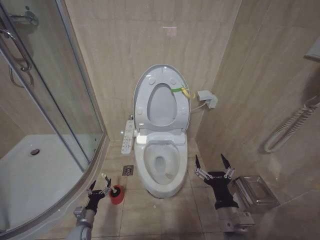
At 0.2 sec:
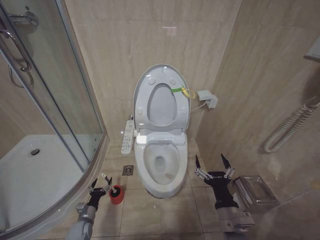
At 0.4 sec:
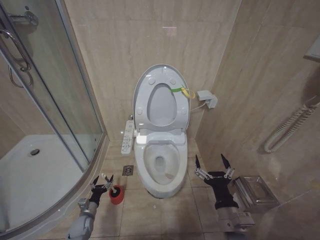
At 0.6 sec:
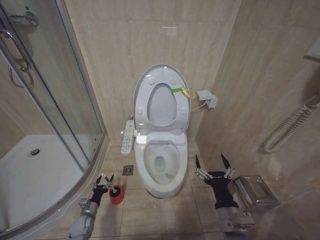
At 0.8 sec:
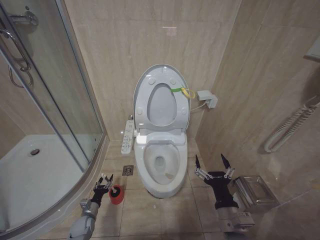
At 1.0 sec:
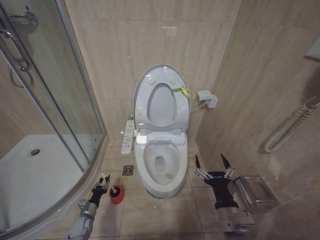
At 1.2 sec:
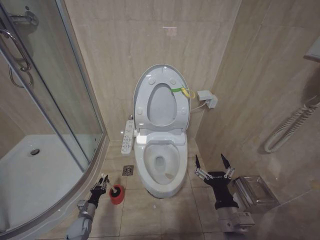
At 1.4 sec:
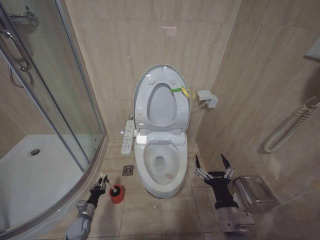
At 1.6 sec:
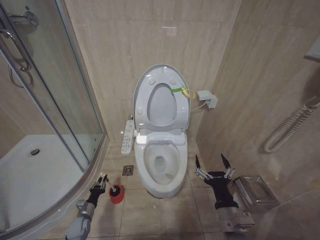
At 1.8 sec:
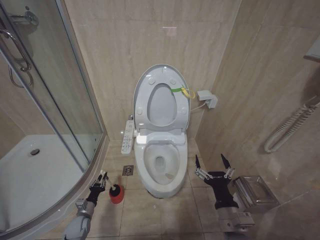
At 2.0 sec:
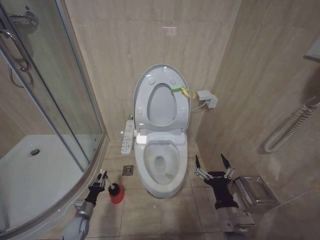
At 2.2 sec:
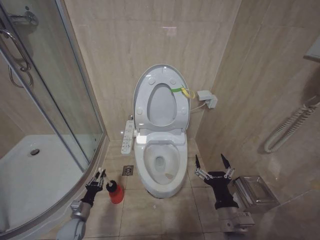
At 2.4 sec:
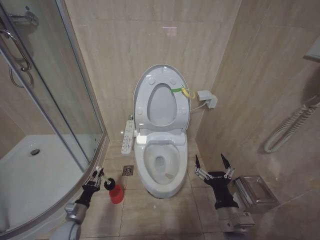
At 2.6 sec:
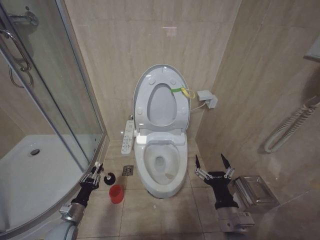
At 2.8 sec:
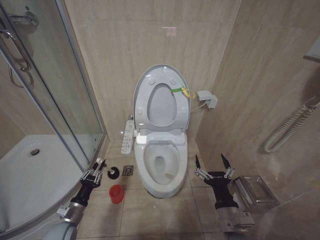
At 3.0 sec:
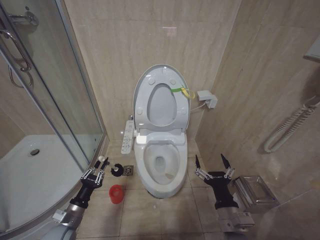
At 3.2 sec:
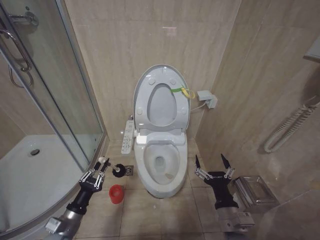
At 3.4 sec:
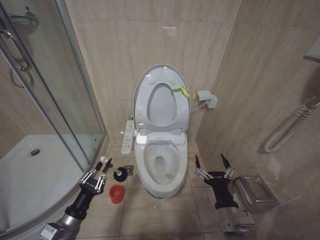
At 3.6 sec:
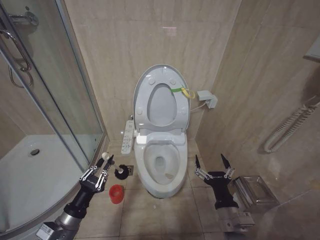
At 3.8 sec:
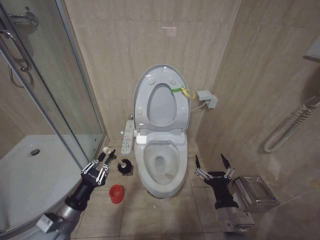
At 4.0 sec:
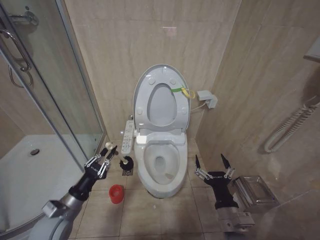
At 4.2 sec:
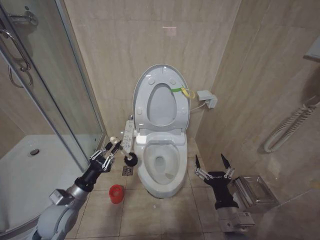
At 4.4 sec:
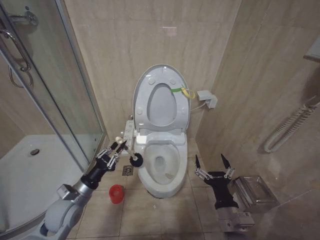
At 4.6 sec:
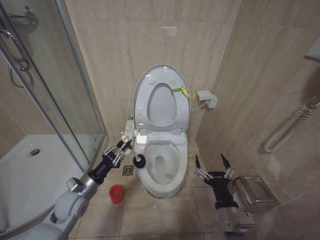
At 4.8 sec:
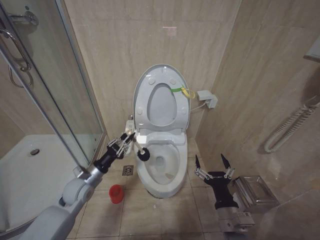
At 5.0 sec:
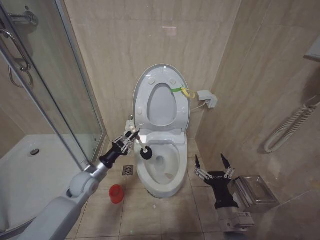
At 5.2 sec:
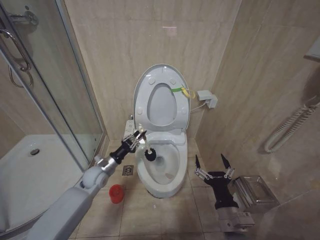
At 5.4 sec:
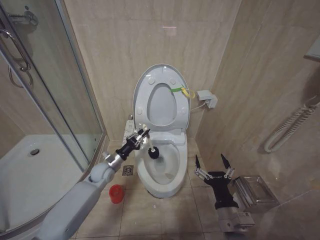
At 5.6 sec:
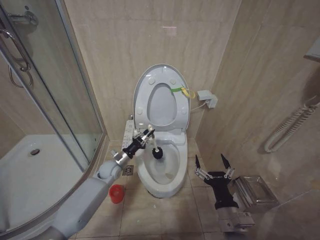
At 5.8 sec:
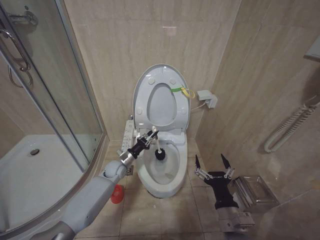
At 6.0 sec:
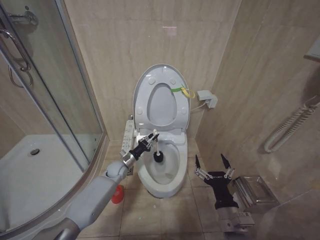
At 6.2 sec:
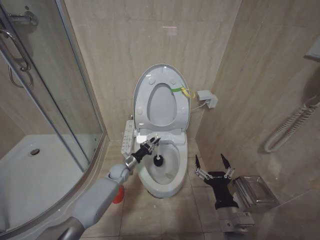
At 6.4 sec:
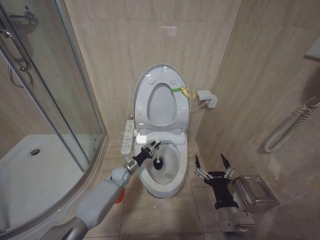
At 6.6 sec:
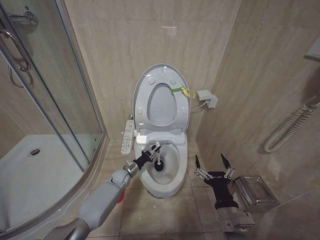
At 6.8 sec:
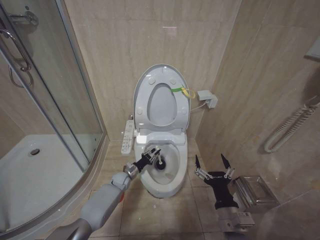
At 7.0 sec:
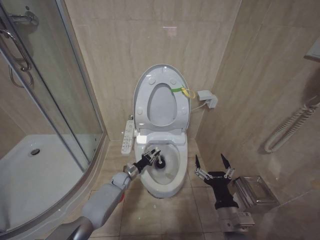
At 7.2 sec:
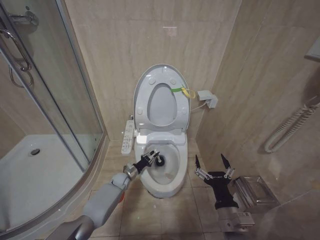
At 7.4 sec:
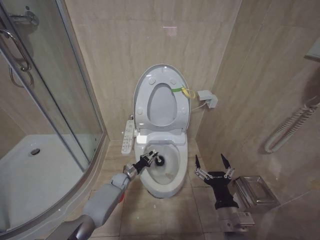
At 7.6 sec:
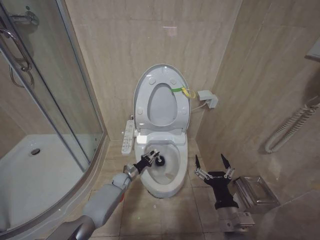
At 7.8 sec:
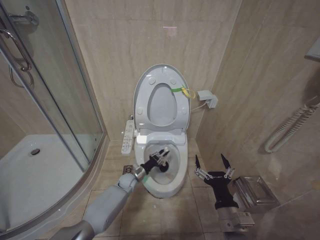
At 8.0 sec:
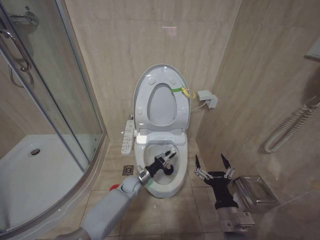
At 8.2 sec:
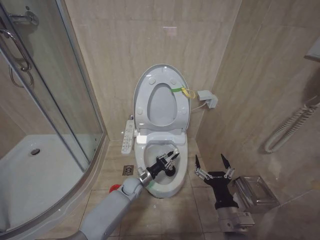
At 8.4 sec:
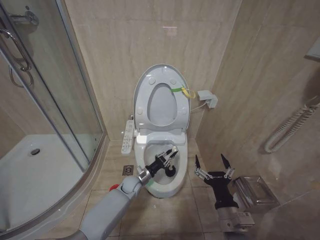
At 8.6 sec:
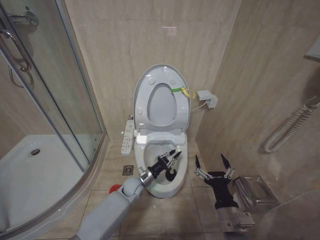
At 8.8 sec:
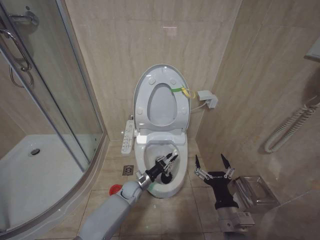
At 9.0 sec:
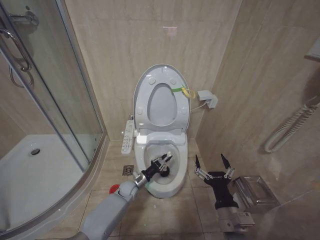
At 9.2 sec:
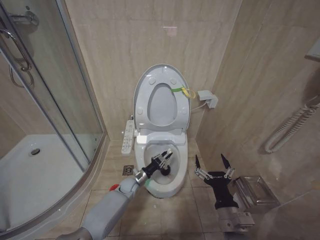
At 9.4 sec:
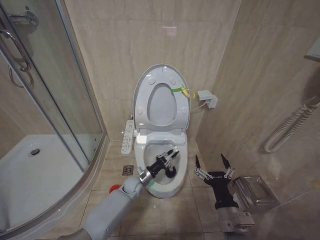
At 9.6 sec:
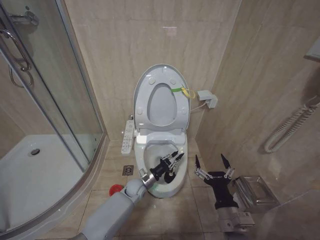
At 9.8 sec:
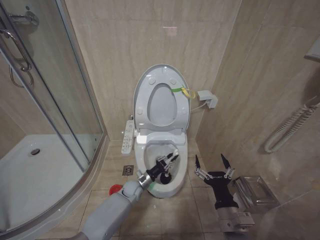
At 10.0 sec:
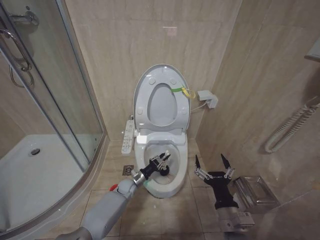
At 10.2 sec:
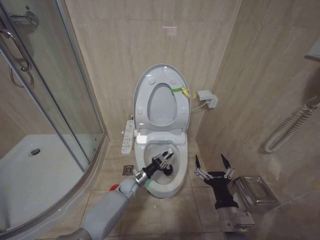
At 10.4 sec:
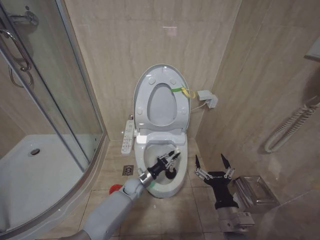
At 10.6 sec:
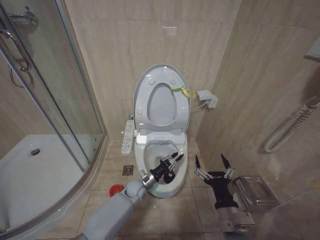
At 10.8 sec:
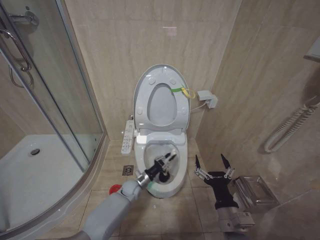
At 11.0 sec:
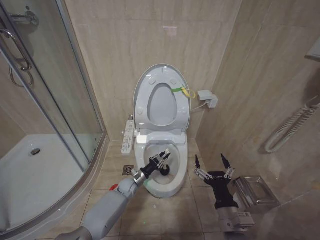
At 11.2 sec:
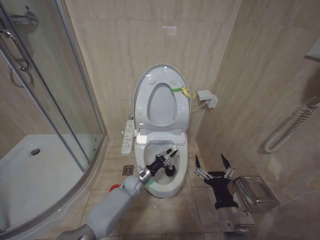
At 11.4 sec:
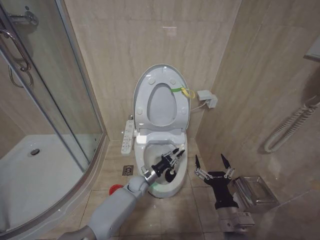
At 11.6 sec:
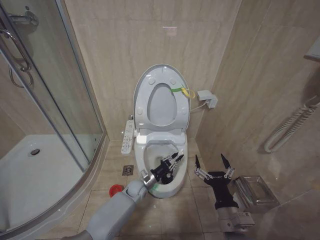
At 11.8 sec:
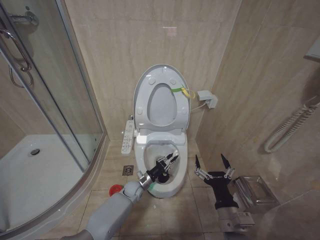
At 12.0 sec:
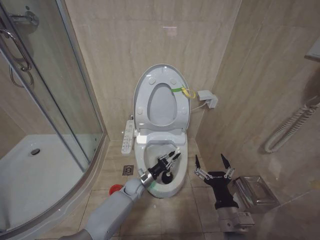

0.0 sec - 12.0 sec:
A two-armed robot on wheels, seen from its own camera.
Task of the whole recording: Open the toilet lid, clean the toilet bowl with a toilet brush, close the toilet lid, and flush.
0.0 sec - 1.6 sec: The left gripper moves approximately 5 cm, and closes up.
1.6 sec - 3.0 sec: The left gripper moves upward and backward, about 20 cm.
3.0 sec - 4.4 sec: The left gripper moves upward, roughly 10 cm.
4.4 sec - 6.0 sec: The left gripper travels forward and to the right by roughly 25 cm.
6.0 sec - 7.6 sec: The left gripper travels downward by about 10 cm.
7.6 sec - 9.0 sec: The left gripper goes roughly 10 cm backward and to the right.
9.0 sec - 10.4 sec: The grippers move only a little.

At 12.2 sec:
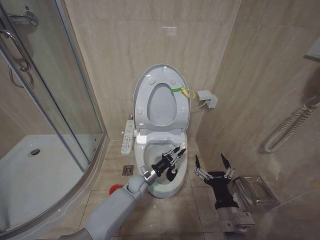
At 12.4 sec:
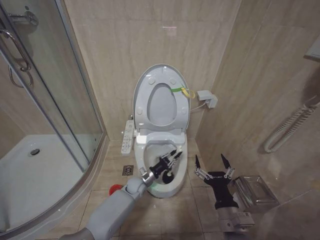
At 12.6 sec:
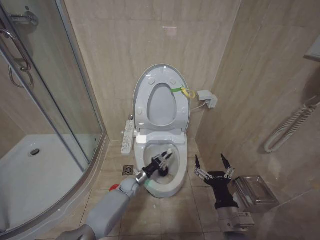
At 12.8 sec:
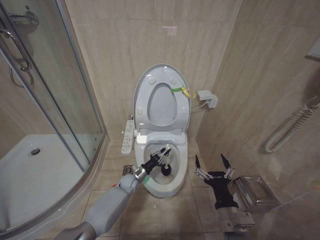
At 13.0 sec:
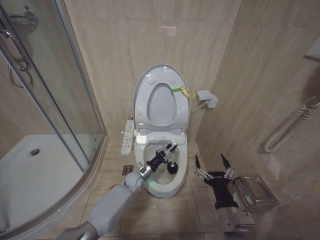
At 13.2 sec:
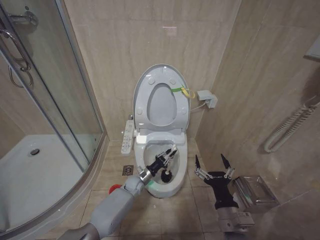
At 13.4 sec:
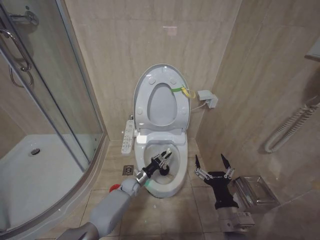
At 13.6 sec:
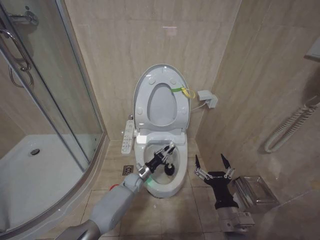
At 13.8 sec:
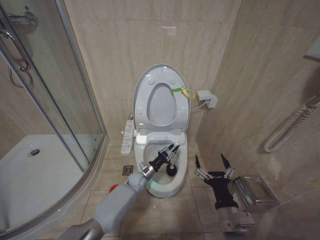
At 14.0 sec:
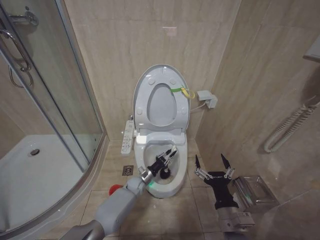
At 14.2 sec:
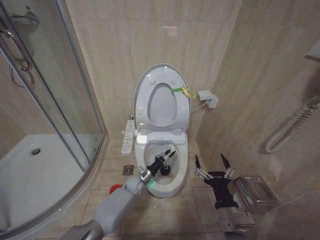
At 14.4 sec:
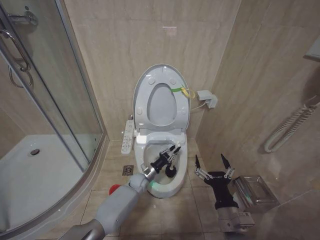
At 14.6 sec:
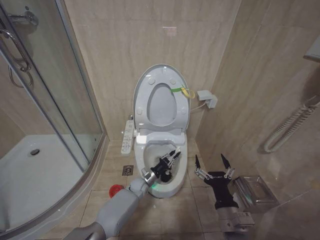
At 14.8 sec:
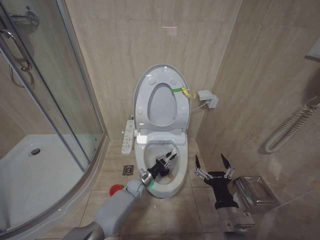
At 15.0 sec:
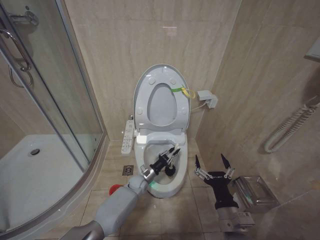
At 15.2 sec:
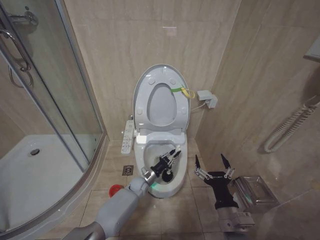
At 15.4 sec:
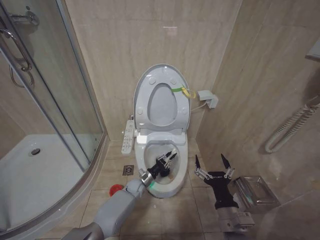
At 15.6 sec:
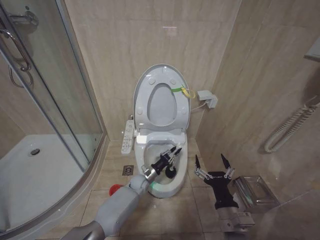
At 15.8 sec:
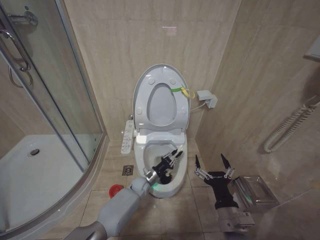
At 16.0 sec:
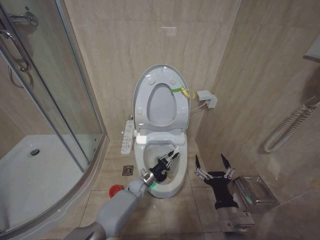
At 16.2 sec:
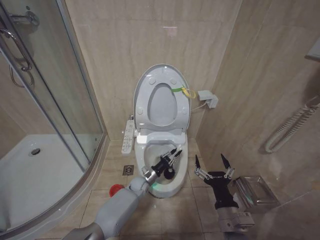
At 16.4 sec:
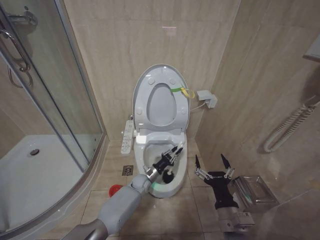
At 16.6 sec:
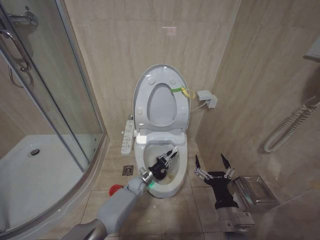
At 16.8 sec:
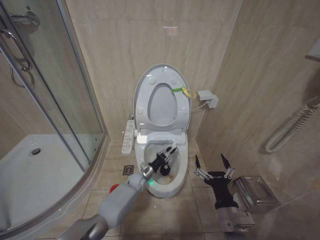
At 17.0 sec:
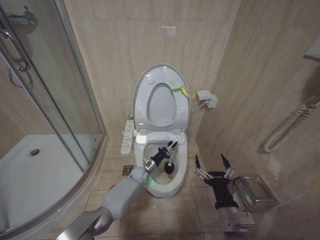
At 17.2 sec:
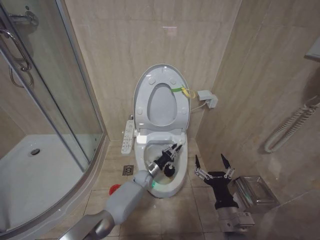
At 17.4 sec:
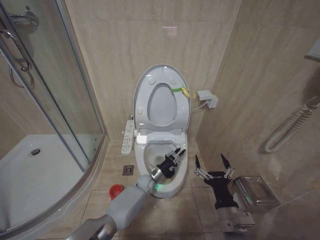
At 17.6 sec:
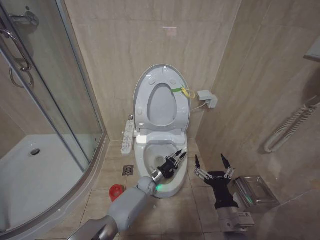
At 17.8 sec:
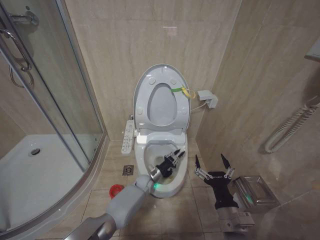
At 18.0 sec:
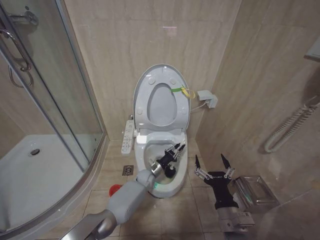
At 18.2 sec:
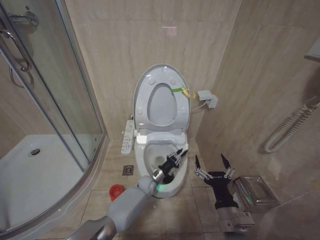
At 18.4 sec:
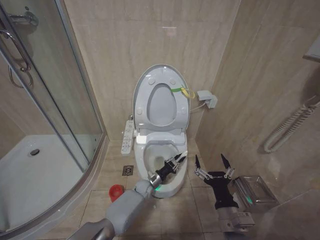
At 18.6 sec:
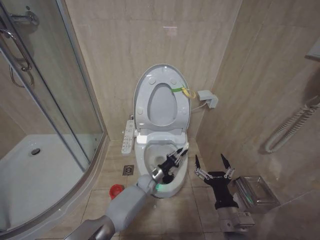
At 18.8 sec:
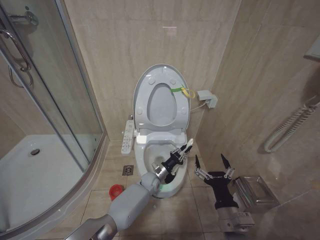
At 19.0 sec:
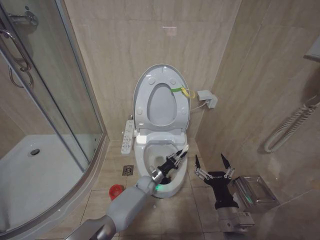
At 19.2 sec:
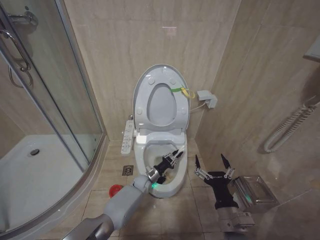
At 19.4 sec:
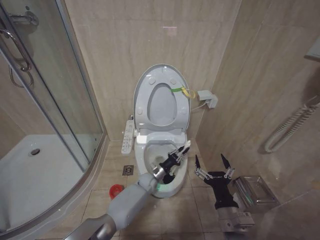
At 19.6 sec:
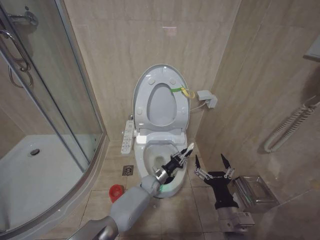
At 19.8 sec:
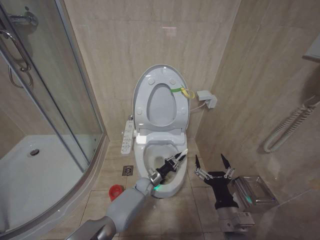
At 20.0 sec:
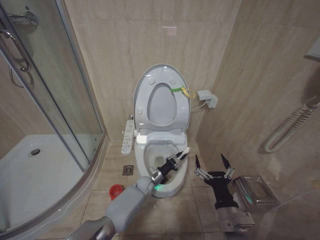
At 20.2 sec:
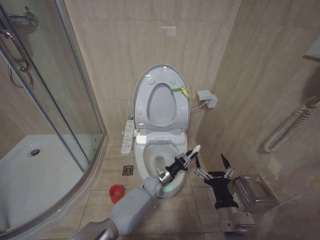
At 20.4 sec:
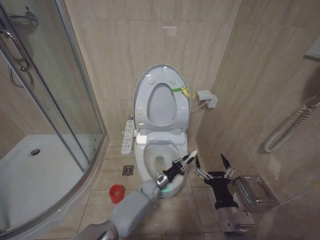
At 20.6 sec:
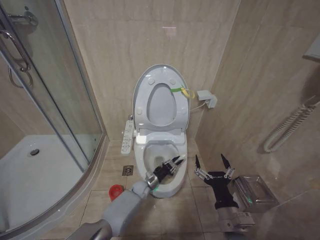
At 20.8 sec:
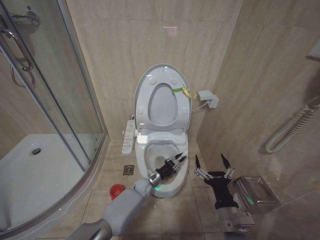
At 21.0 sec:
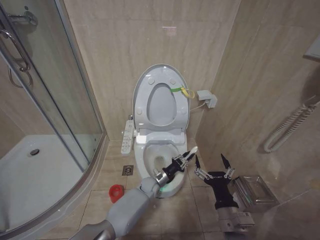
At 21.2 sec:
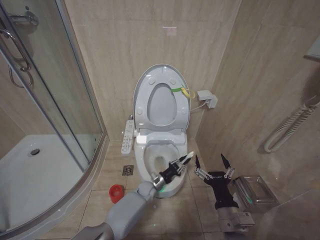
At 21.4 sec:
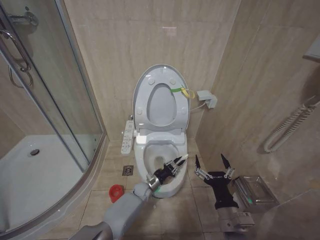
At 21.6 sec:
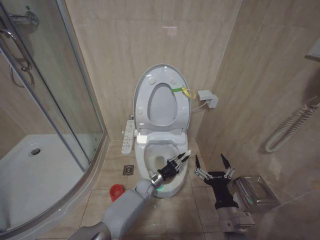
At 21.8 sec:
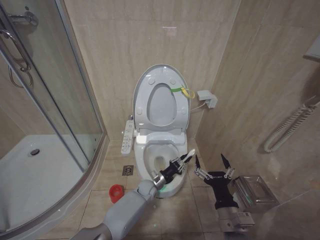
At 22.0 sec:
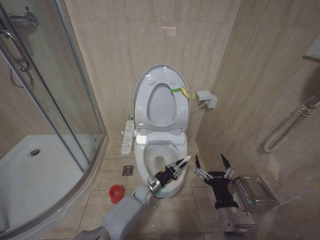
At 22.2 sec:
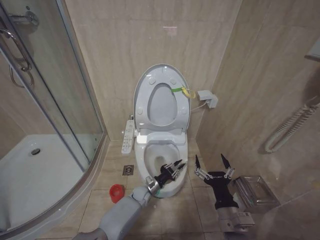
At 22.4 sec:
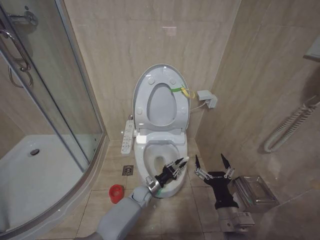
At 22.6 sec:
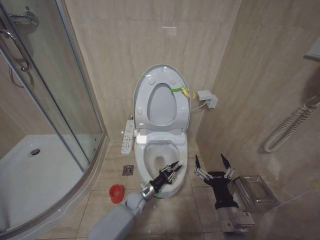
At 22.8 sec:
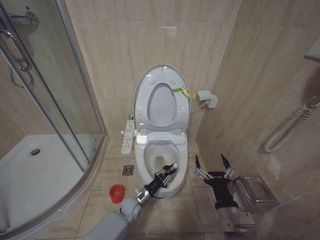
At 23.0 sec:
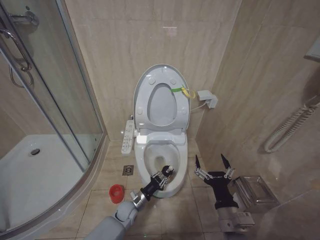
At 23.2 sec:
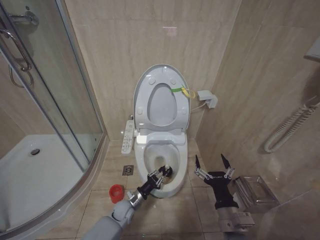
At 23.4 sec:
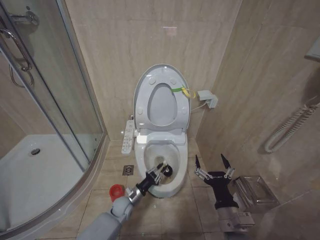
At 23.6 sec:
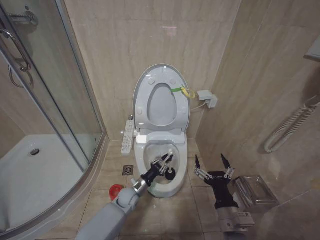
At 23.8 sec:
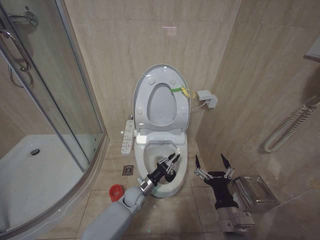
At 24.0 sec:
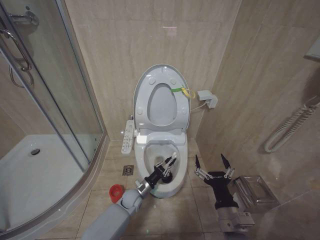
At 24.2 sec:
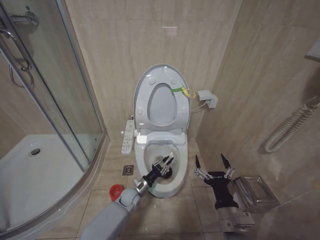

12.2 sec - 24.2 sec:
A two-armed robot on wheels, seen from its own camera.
Task of the whole recording: Open the toilet lid, clean the toilet bowl with a toilet brush, close the toilet lid, and flush.
13.8 sec - 16.6 sec: There are only small adjustments of the grippers.
16.6 sec - 18.2 sec: The left gripper moves about 5 cm.
18.2 sec - 19.8 sec: The left gripper goes up and down, approximately 5 cm each way, reversing 2 times.
19.8 sec - 21.2 sec: The grippers make only small movements.
21.2 sec - 22.6 sec: The left gripper shifts some 5 cm to the left.
